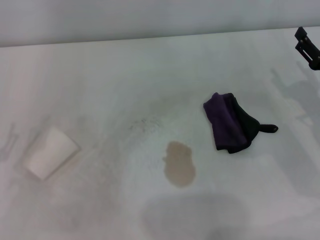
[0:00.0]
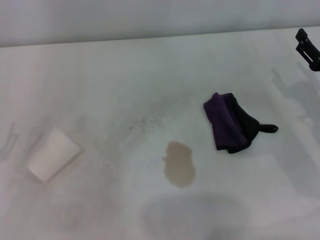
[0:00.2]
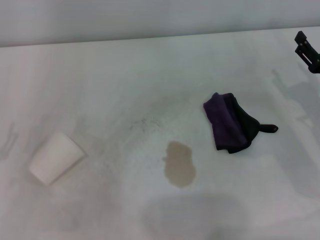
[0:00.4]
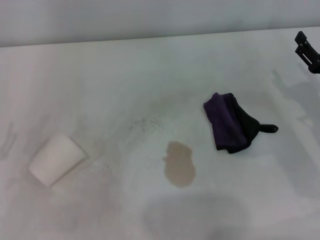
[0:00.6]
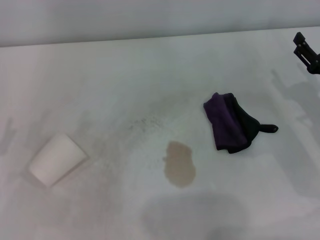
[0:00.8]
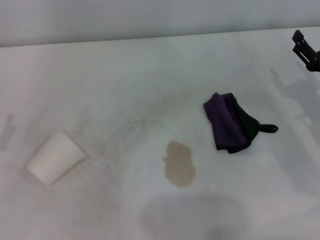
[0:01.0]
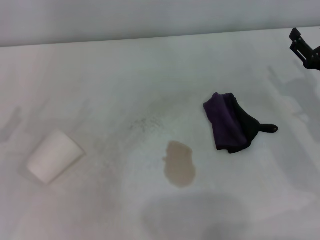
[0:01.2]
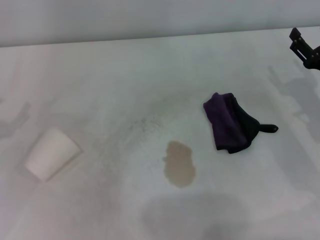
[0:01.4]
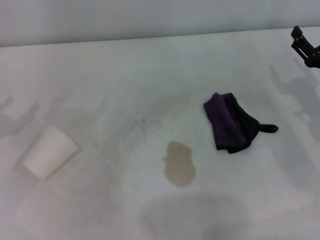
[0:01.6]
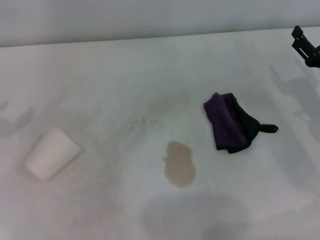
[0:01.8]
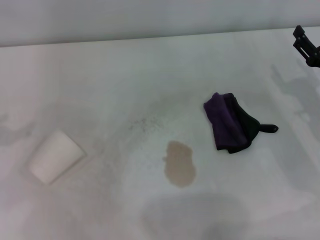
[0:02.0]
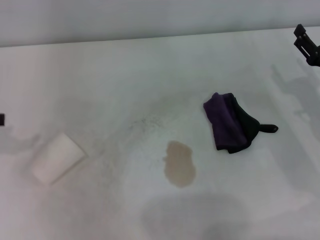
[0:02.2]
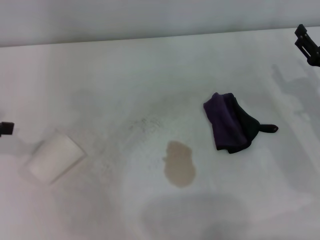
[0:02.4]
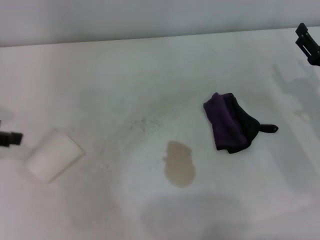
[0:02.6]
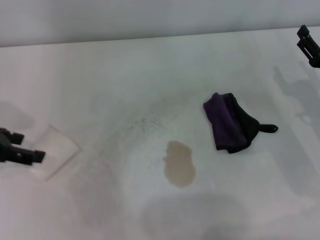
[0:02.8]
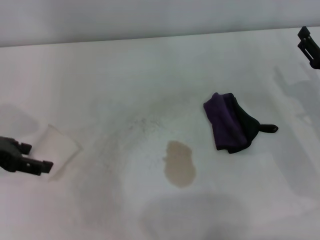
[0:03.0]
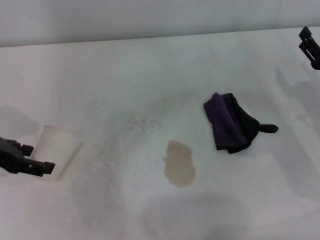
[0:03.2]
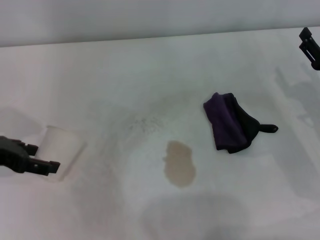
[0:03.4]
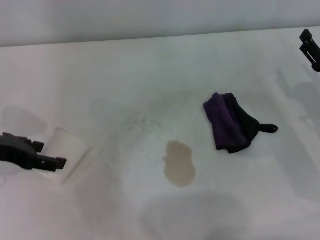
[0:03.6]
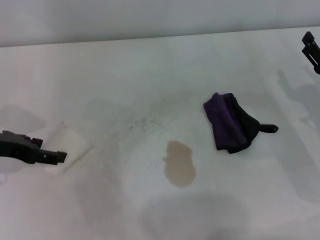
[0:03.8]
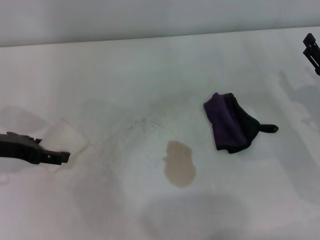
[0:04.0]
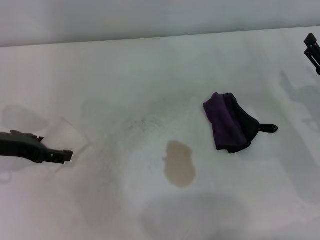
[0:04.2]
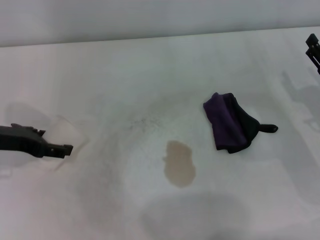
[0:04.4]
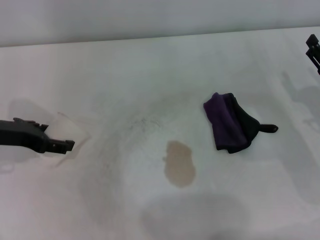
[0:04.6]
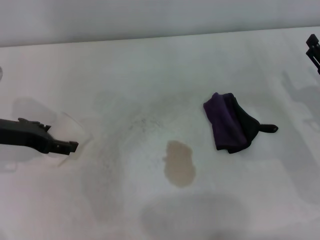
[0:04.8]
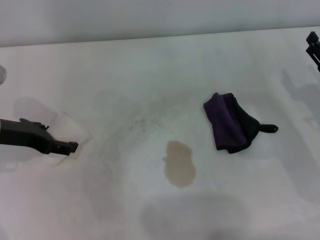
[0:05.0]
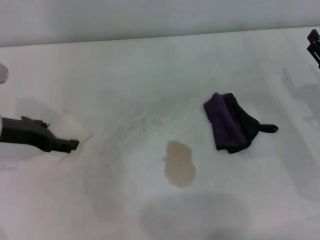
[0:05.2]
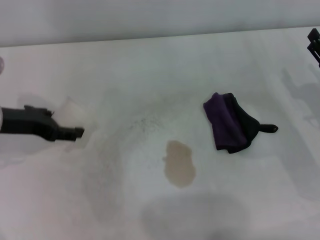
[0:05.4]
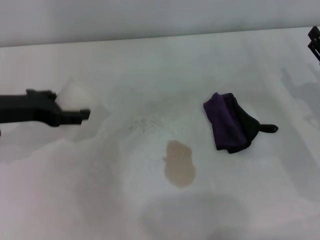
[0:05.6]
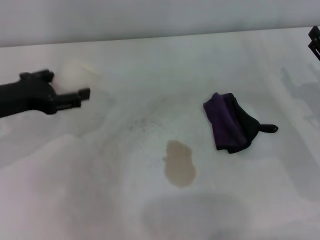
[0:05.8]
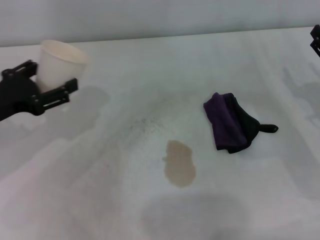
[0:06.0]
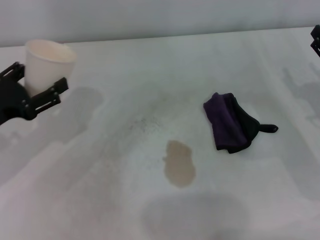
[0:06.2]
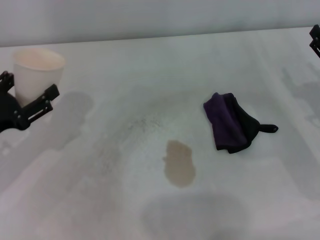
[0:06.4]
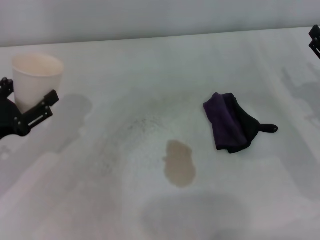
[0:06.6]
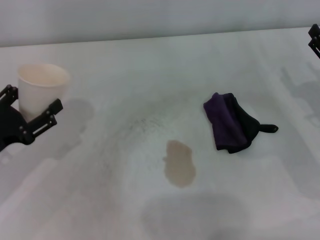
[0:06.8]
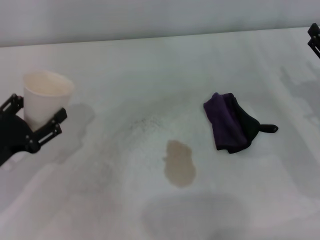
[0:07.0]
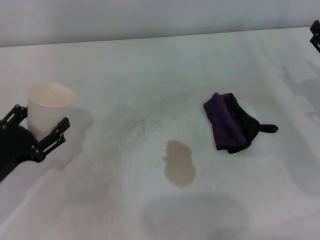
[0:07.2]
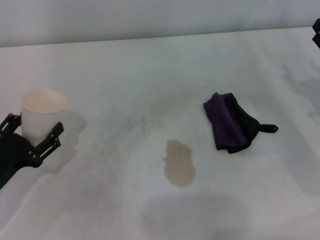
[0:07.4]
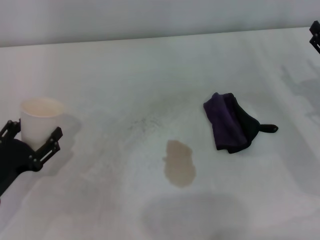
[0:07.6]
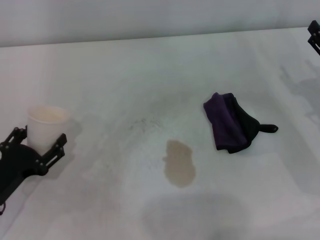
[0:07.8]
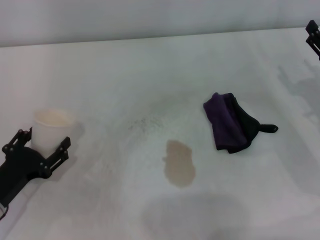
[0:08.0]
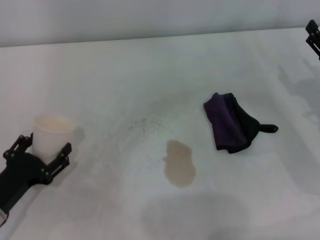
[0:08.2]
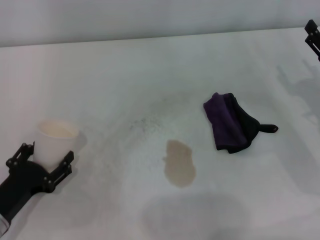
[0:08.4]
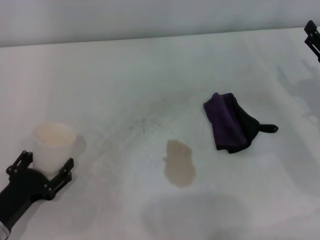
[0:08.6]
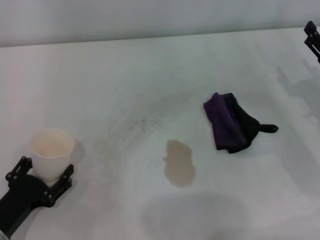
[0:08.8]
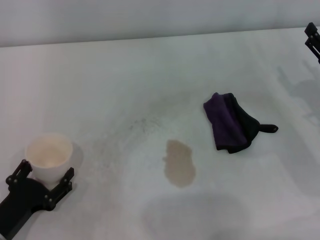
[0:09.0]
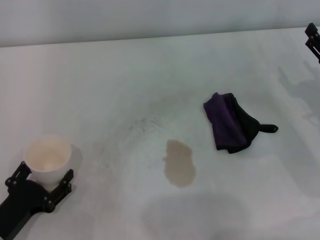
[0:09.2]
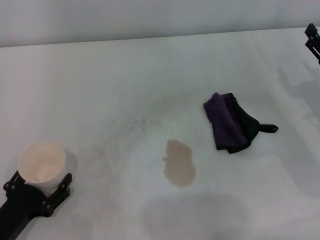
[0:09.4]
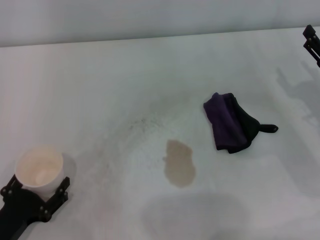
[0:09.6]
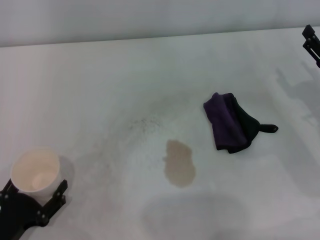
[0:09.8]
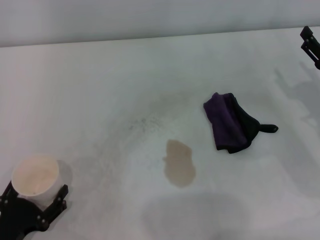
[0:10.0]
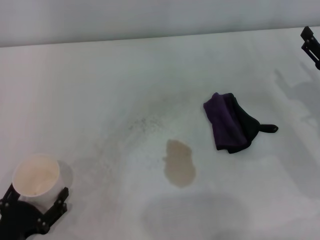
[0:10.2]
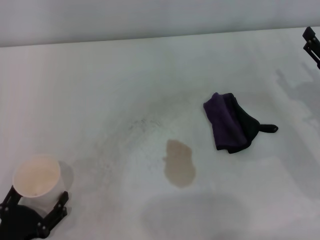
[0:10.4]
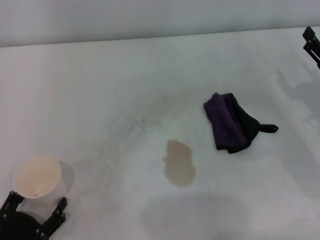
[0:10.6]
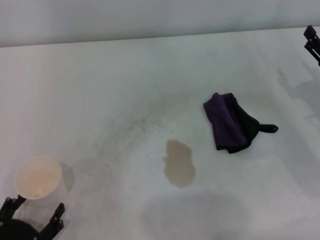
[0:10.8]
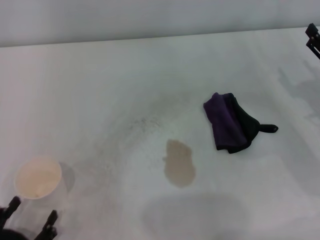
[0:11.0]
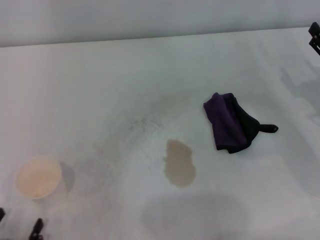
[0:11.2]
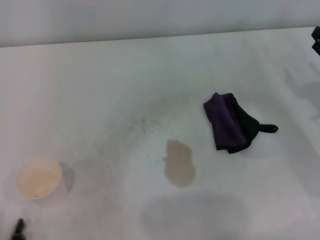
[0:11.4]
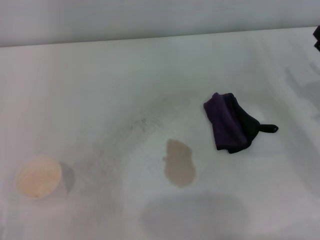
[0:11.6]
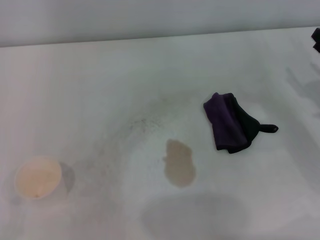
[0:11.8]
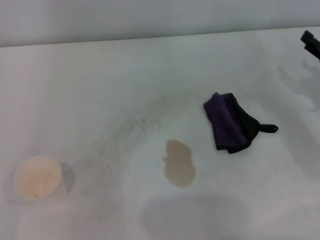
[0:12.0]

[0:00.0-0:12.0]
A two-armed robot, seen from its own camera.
Step, 0:00.0 to 0:03.8: Grasp the paper cup with the left gripper.
Step, 0:04.0 to 0:10.2: Stand the paper cup upright with the left gripper.
0:01.6 to 0:03.0: The left gripper travels to the right by about 5 cm.
0:03.0 to 0:04.4: The grippers stay close to where they were, moving slightly.
0:06.0 to 0:07.6: The left gripper moves downward and backward, roughly 15 cm.
0:07.6 to 0:09.0: The left gripper shifts by roughly 5 cm.
0:09.0 to 0:10.4: The grippers stay close to where they were, moving slightly.
0:10.4 to 0:12.0: The left gripper goes approximately 5 cm to the left.

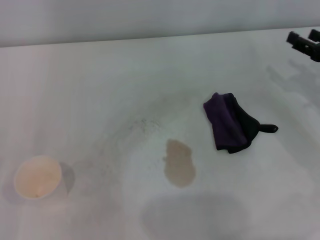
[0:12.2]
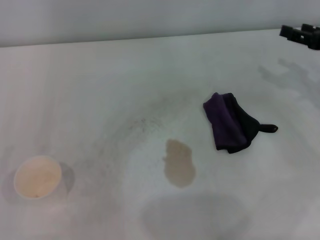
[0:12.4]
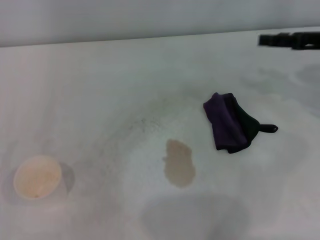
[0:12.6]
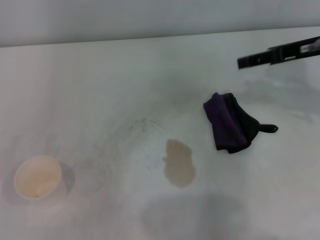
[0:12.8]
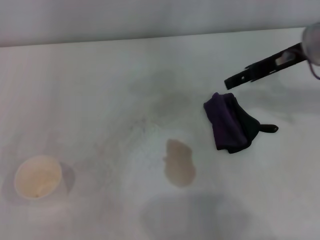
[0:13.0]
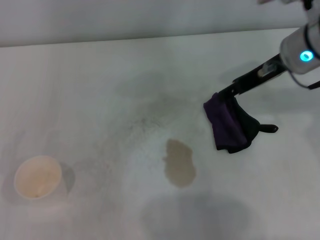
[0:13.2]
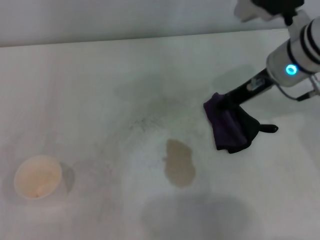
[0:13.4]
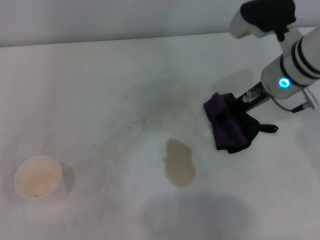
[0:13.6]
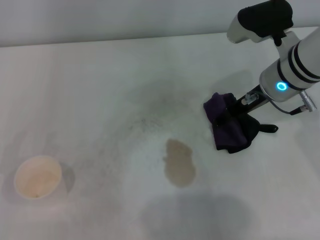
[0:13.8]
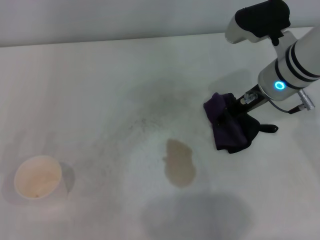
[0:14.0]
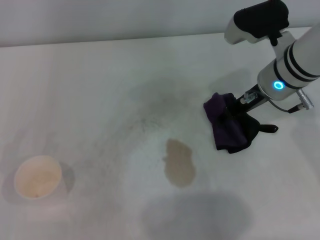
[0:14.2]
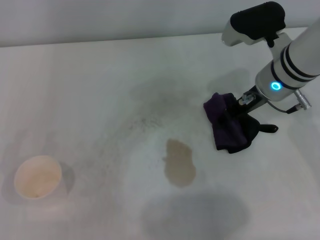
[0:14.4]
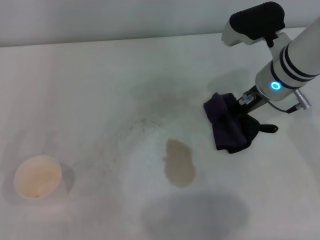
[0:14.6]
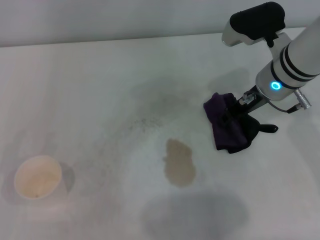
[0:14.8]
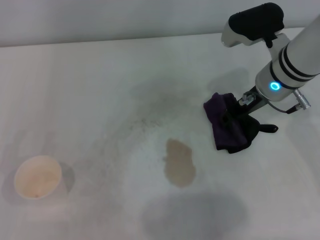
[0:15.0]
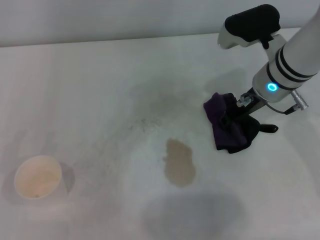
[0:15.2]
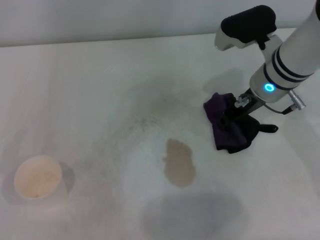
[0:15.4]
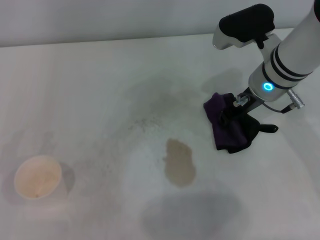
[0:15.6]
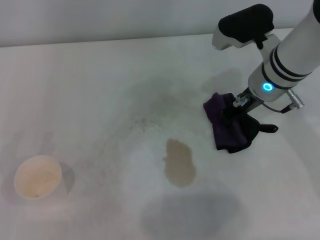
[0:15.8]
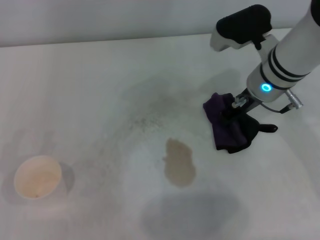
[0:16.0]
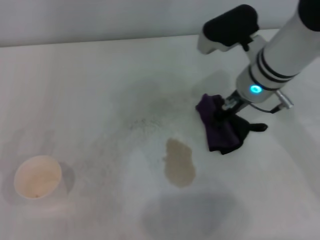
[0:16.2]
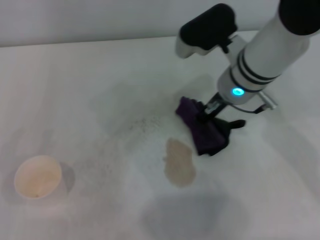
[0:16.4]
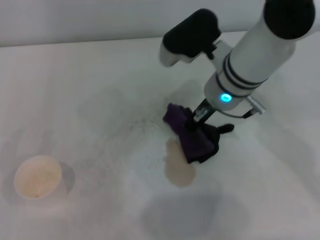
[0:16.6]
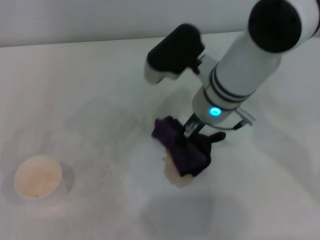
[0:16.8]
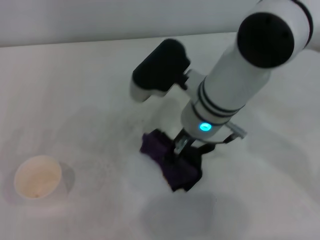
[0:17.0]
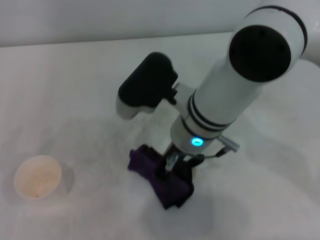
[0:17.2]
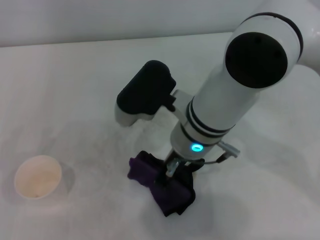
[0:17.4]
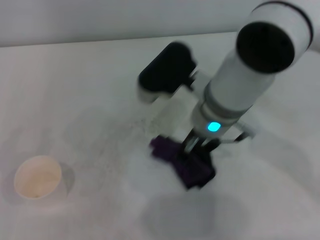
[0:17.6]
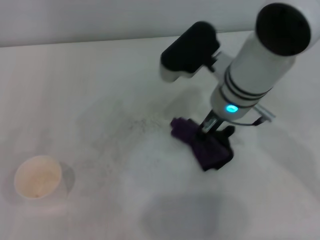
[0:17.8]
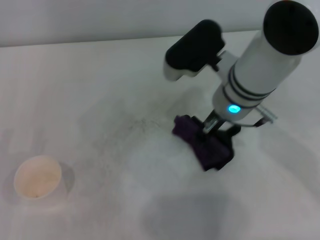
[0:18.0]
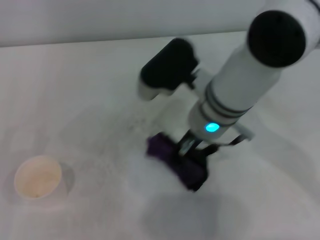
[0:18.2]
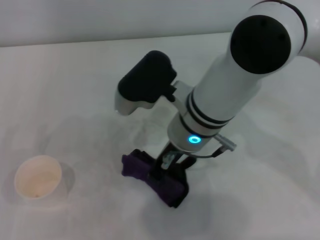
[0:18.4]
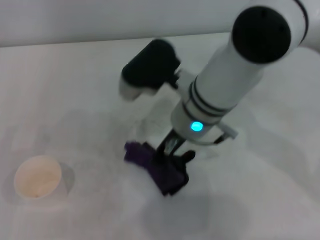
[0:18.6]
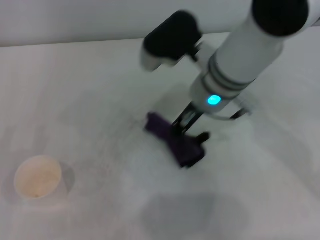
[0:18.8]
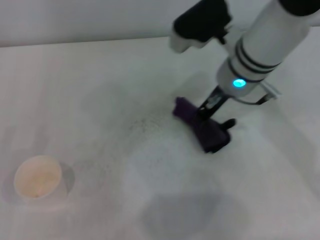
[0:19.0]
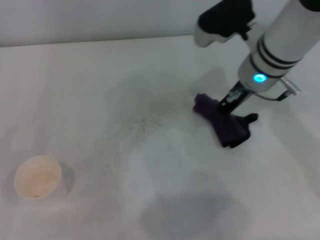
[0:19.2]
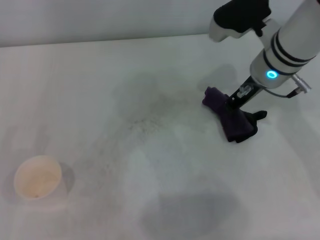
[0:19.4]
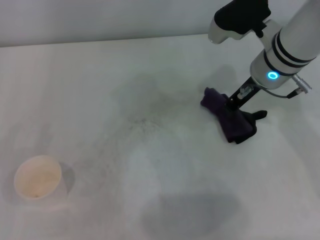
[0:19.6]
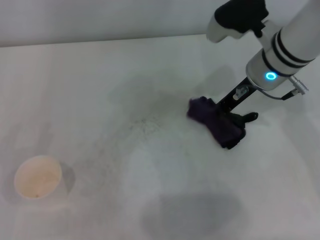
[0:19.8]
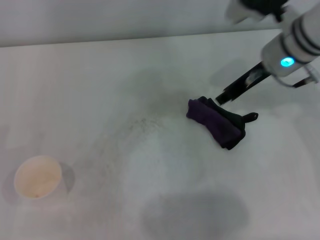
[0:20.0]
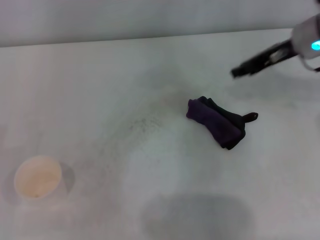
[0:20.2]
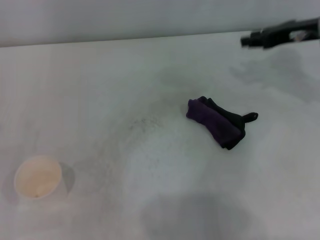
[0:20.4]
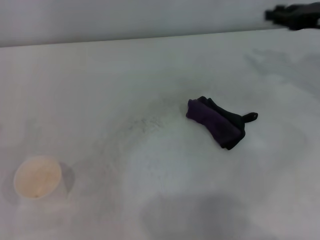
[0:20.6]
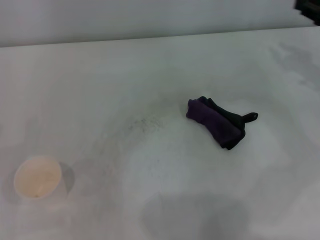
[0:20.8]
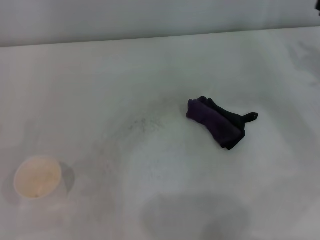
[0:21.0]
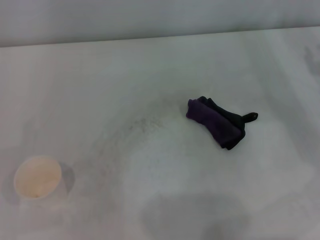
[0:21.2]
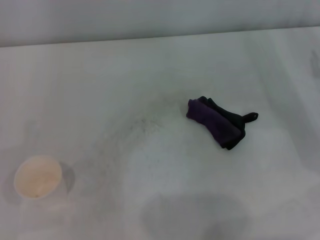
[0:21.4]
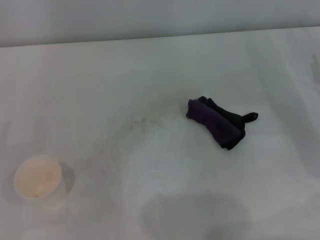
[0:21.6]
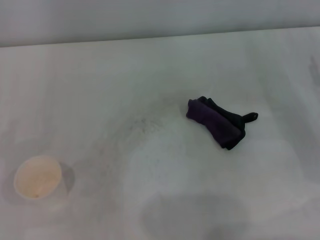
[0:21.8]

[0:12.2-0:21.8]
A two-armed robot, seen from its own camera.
Step, 0:12.2 to 0:15.8: Grasp the rag with the right gripper.
Step, 0:16.0 to 0:19.0: Wipe the stains off the table with the right gripper.
Step, 0:19.2 to 0:19.8: Place the rag on the table with the right gripper.
0:12.2 to 0:13.8: The right gripper moves to the left, approximately 15 cm.
0:13.8 to 0:15.4: The right gripper closes.
0:15.4 to 0:17.0: The right gripper moves to the left, some 10 cm, and closes up.
0:17.0 to 0:18.6: The grippers make only small movements.
0:18.6 to 0:20.2: The right gripper is displaced to the right by approximately 20 cm.
0:20.2 to 0:21.8: The right gripper goes roughly 20 cm downward, to the right and backward.
